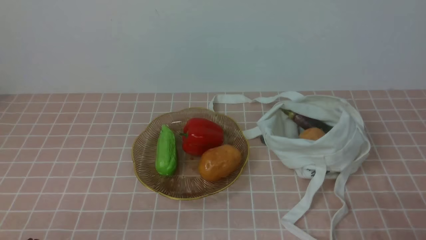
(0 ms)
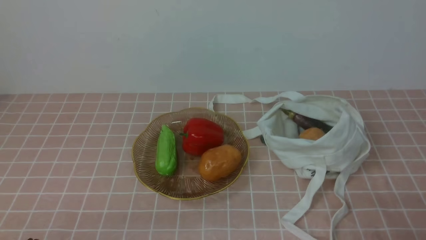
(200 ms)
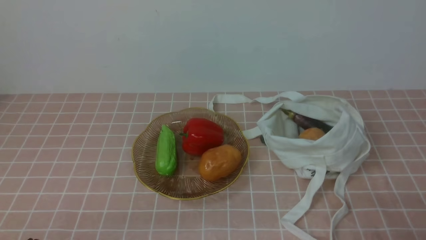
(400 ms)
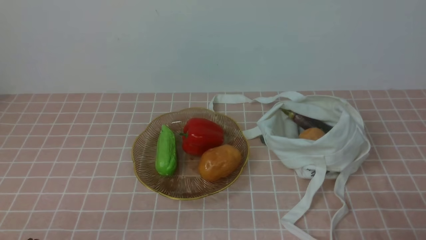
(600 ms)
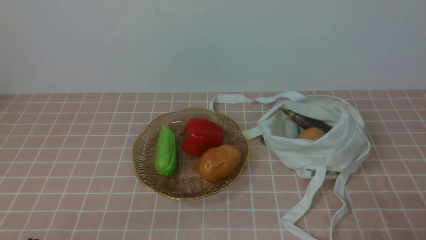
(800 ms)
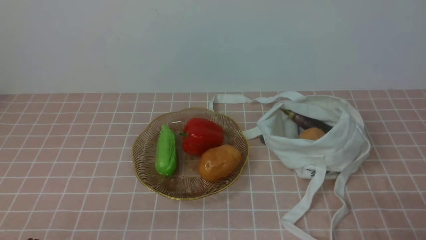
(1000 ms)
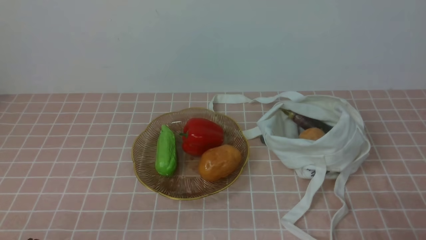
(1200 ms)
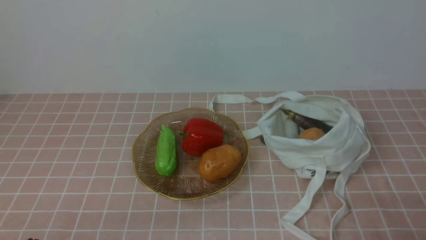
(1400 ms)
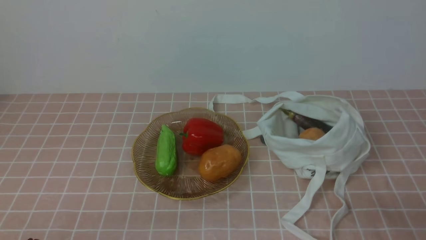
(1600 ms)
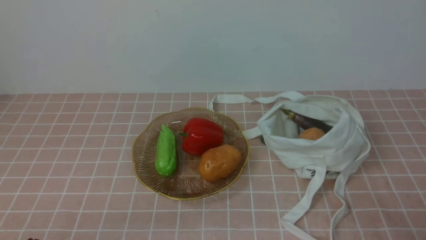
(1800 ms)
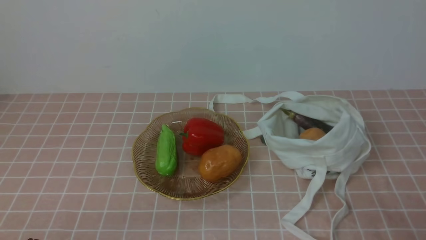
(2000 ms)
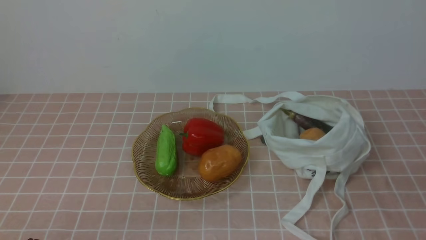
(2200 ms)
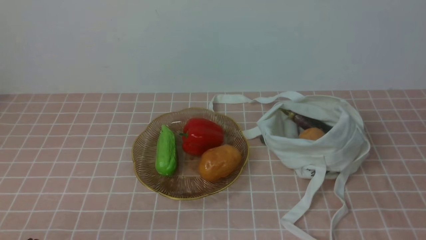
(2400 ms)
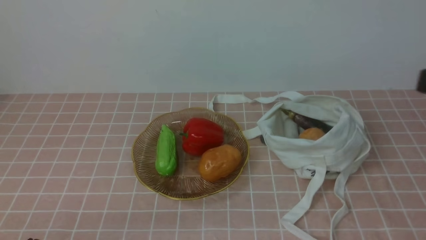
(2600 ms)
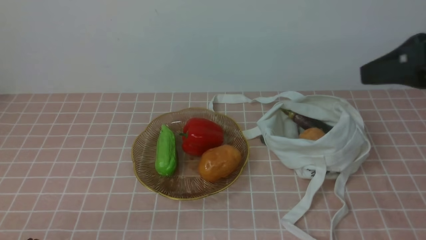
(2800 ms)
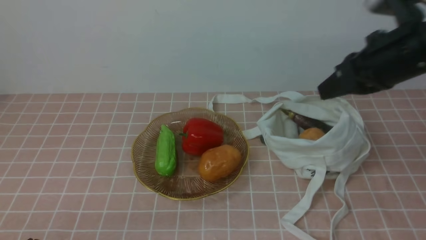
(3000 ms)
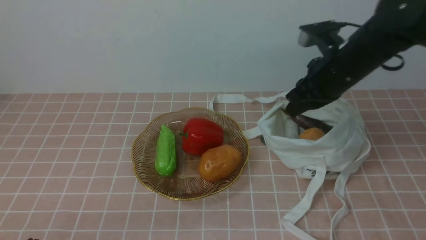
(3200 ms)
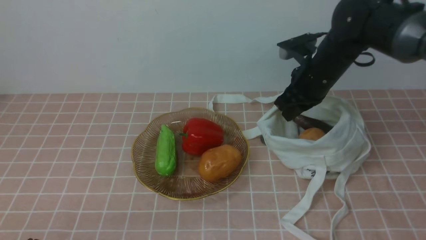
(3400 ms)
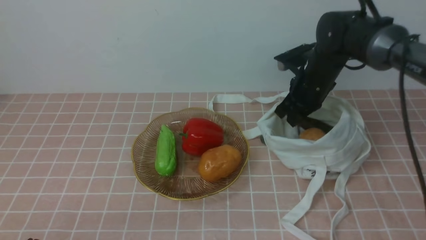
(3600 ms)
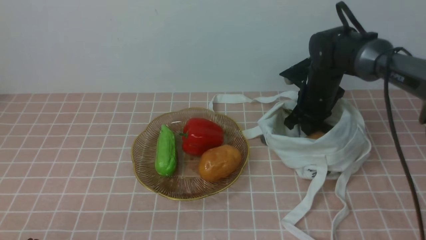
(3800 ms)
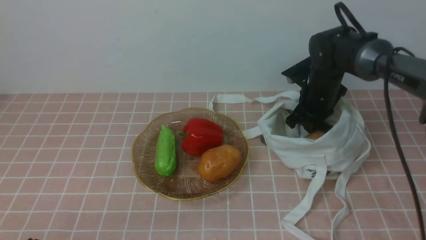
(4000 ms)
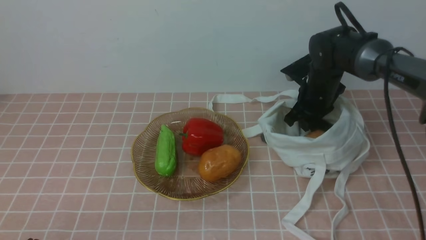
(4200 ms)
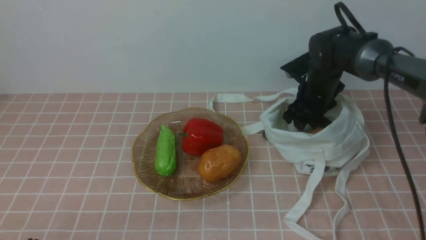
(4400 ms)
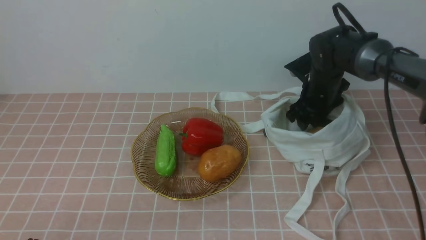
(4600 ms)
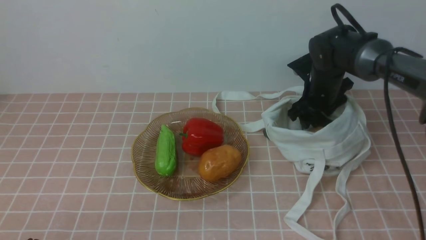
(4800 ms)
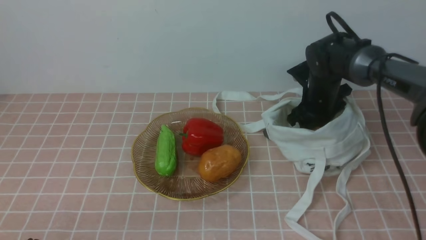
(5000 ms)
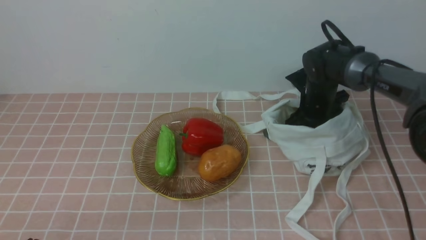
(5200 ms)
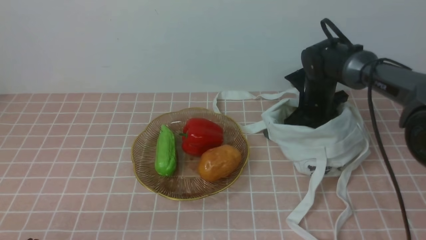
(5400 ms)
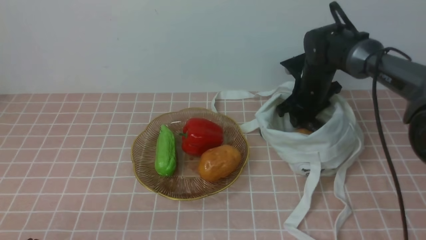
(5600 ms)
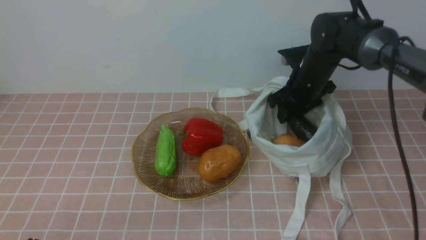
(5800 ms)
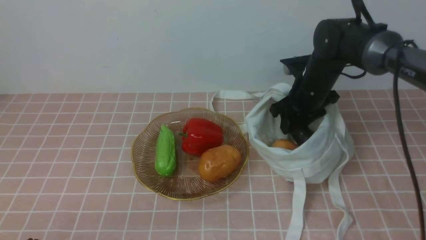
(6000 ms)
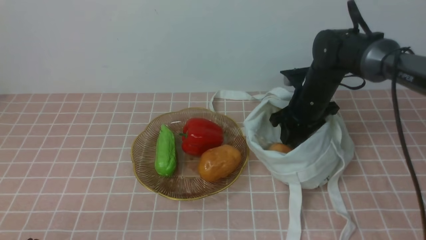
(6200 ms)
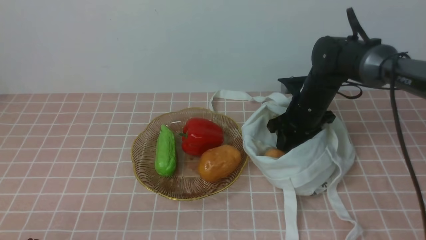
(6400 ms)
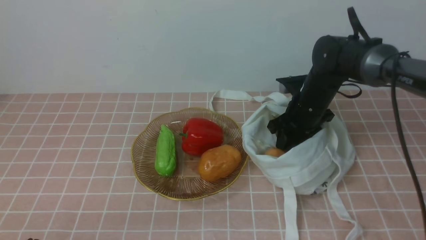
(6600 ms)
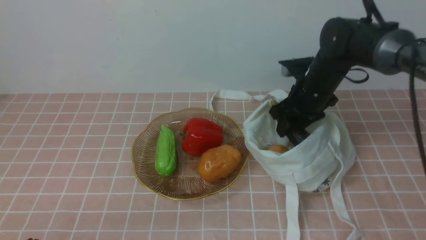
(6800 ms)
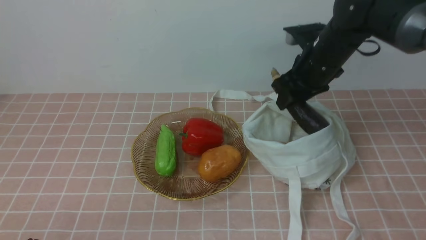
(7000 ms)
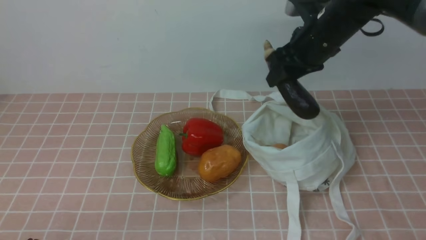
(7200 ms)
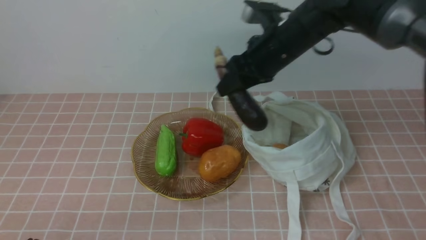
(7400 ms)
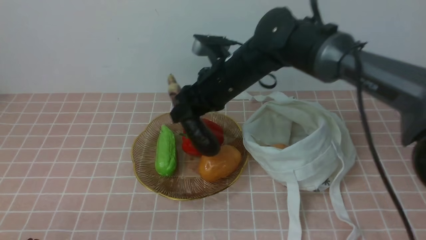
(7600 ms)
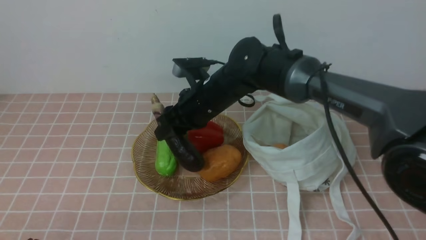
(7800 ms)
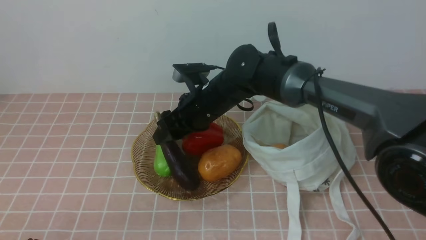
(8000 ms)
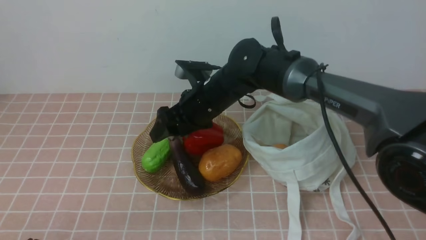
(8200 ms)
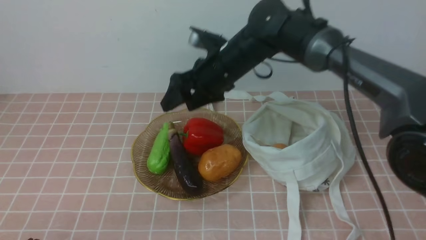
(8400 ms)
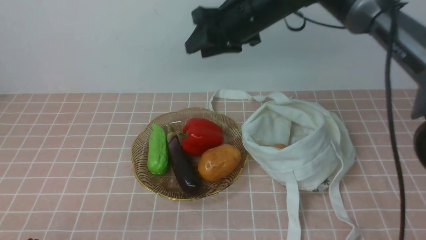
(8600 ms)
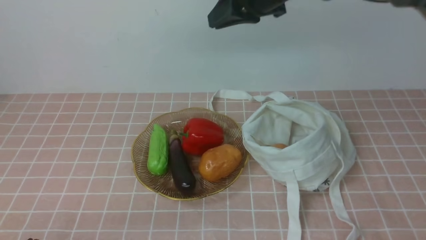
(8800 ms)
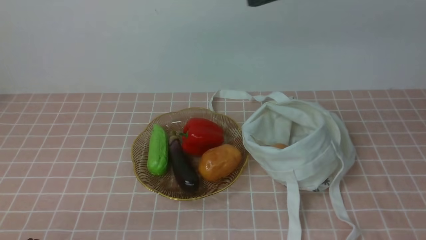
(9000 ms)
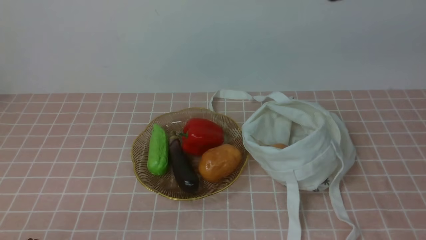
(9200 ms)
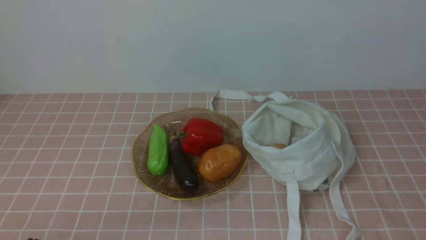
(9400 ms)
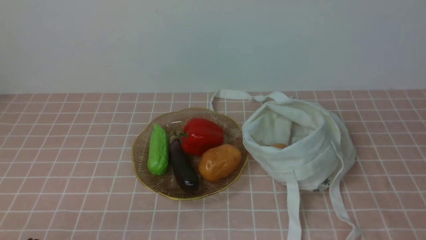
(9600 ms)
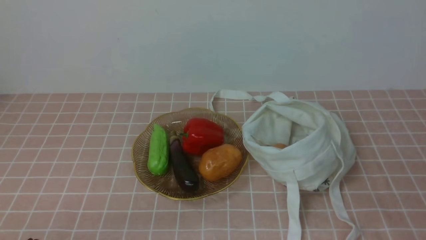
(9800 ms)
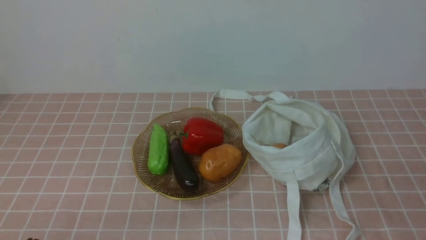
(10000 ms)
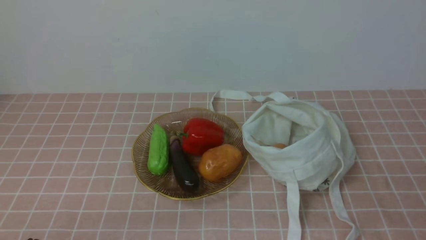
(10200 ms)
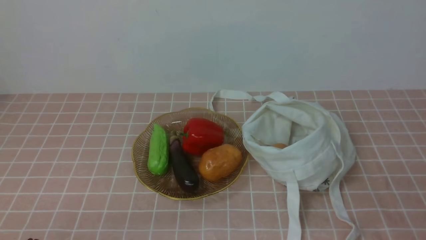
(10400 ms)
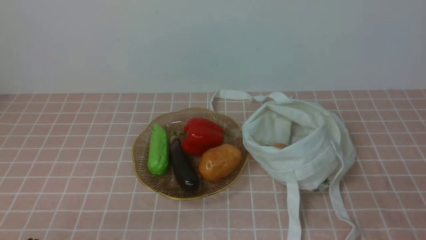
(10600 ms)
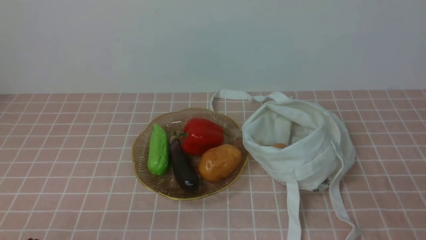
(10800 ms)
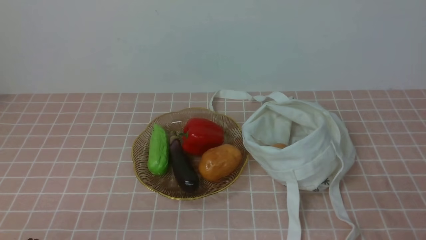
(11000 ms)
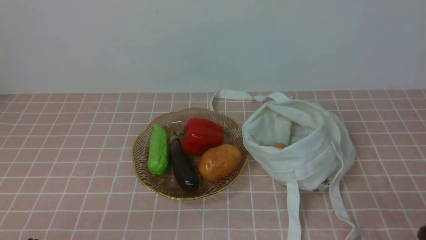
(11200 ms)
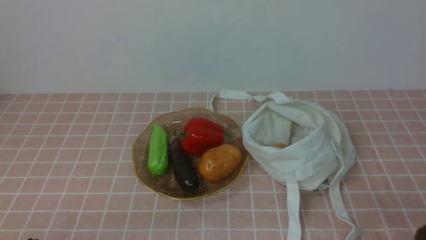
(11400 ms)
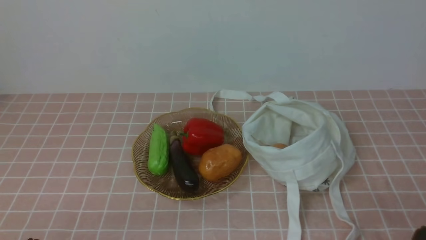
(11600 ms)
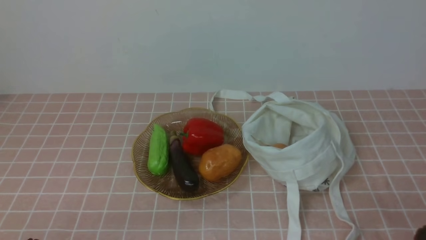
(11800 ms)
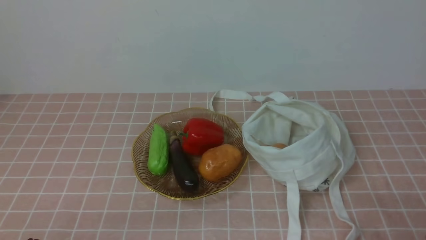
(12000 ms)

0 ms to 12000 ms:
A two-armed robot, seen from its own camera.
Task of the whole recording: take vegetables from bag on pink coffee tablecloth place on plate.
Step, 0 ms to 6200 ms: Grasp the eggplant with right gripper.
Step, 6400 ms to 8400 ms: Place the eggplant on the plate with right gripper.
1600 ms to 3000 ms: The right gripper heads forward and upward, covering about 30 cm.
3000 ms to 4400 ms: The right gripper moves downward and forward, some 25 cm, and opens its fingers.
4400 ms to 6000 ms: The right gripper opens, then closes again.
6000 ms to 7600 ms: The right gripper goes some 15 cm to the left and upward.
7600 ms to 9000 ms: The right gripper moves upward and to the right, some 20 cm, and closes its fingers.

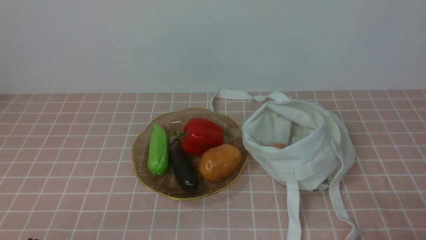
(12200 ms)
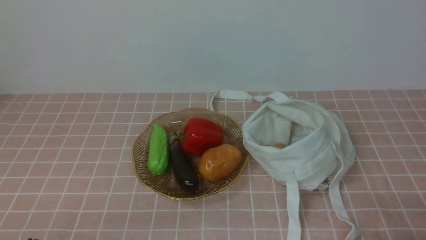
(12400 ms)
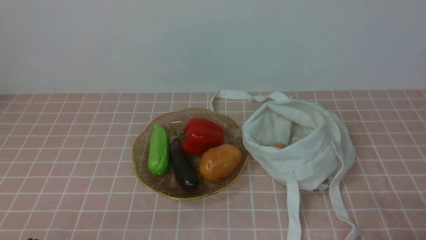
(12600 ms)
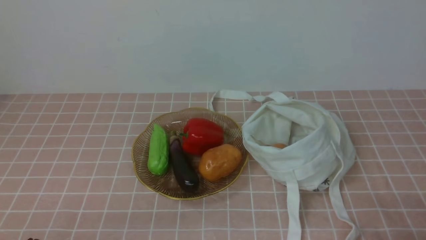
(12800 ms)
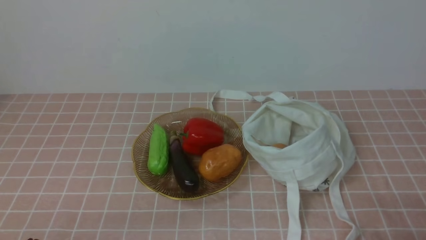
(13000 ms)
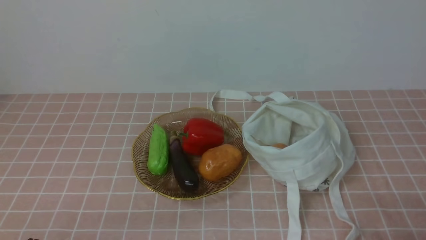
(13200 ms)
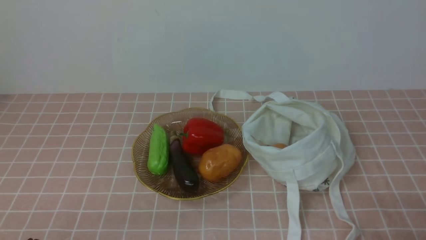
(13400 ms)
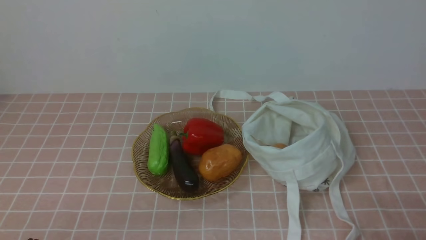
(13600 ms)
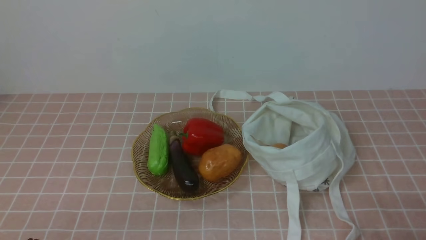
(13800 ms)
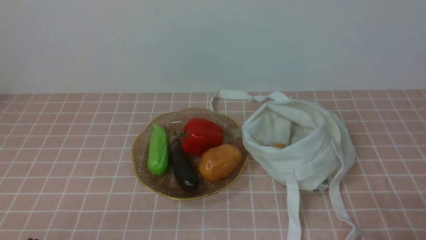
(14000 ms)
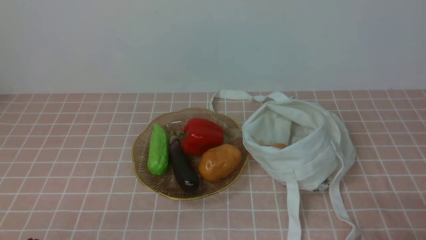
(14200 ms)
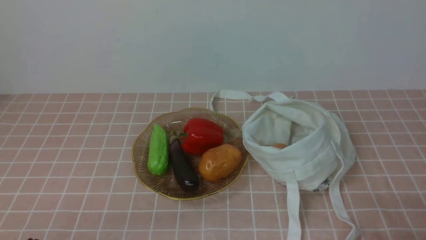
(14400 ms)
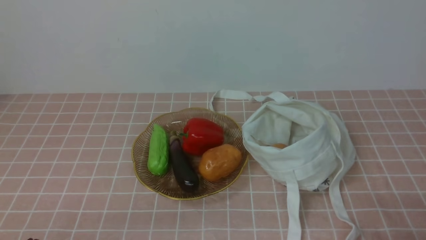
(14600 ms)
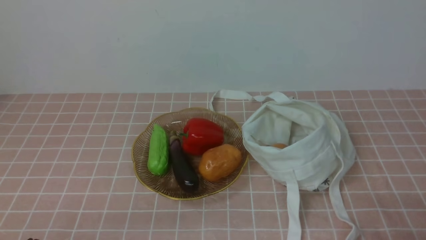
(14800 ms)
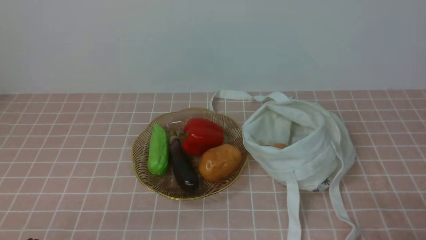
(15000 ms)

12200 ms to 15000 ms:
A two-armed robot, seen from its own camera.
Task of the whole recording: take vegetables from bag on pink coffee tablecloth place on plate.
13600 ms to 15000 ms: Both grippers stay put.

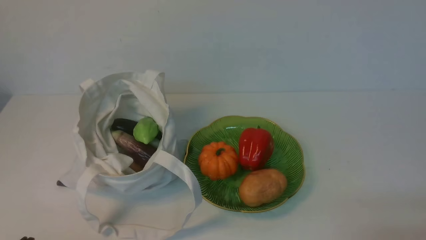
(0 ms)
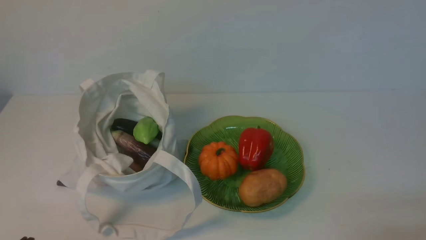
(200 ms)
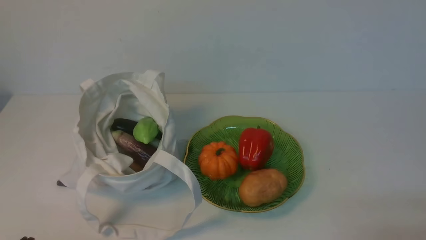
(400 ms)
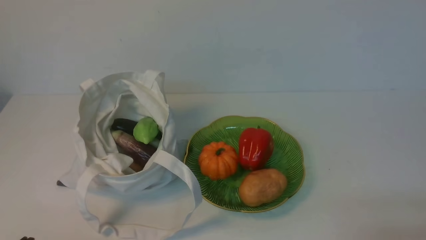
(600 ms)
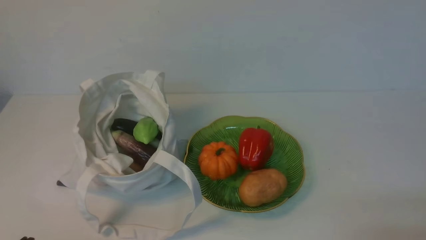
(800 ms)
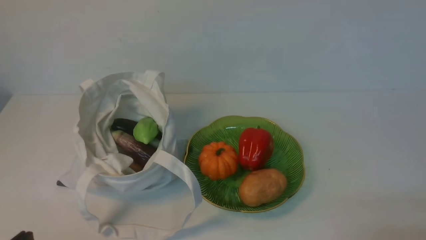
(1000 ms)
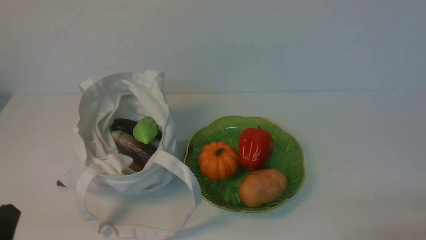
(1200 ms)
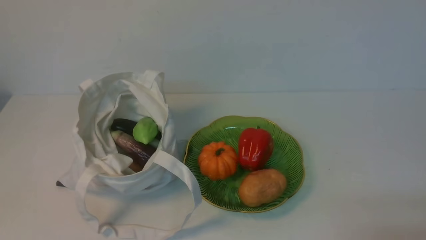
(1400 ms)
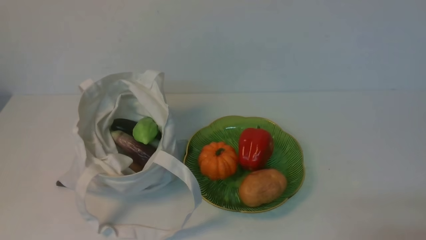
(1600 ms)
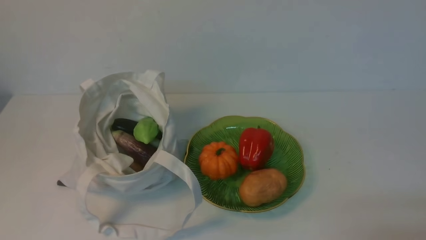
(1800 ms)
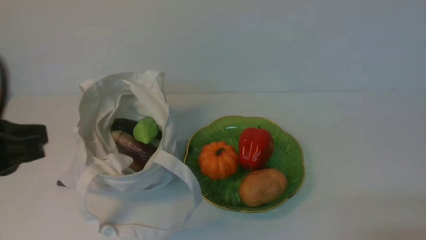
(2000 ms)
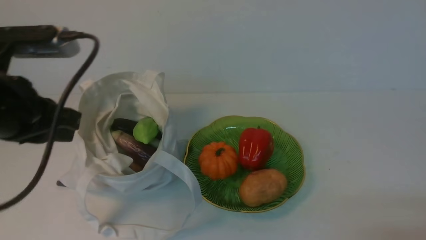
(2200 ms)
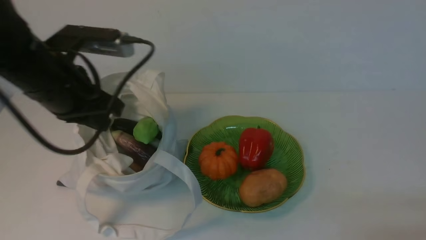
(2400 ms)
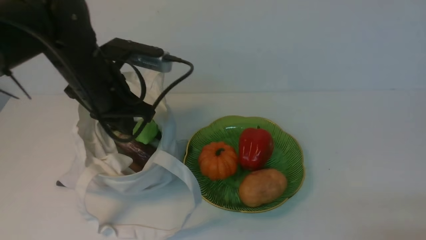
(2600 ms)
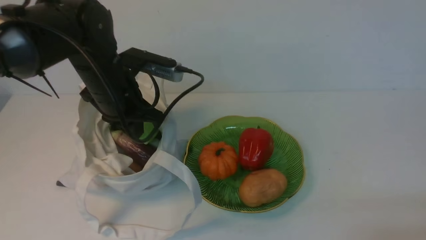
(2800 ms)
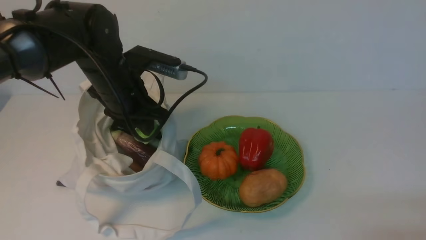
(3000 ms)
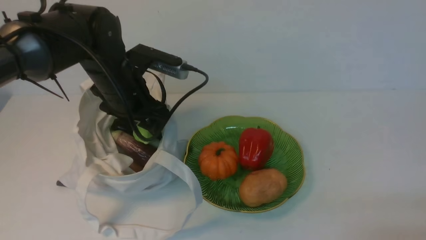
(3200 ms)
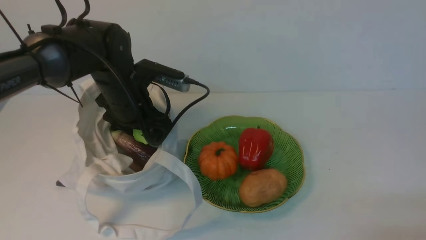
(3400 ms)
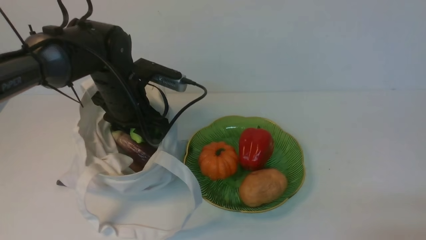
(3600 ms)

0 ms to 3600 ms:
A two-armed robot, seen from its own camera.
Task of the whole recording: take vegetables from cloth bag on white table place on plate.
Step, 0 ms to 3600 ms: Grasp the bitter melon with left gripper.
1800 ms to 3600 ms: The left gripper is displaced forward by approximately 30 cm, and opens up.
